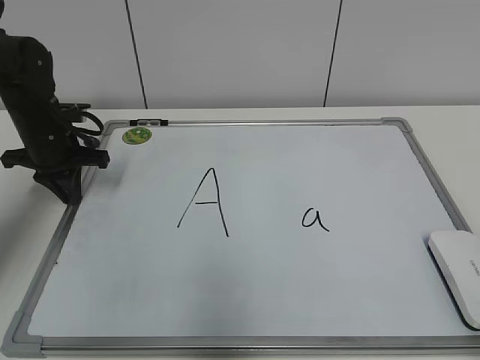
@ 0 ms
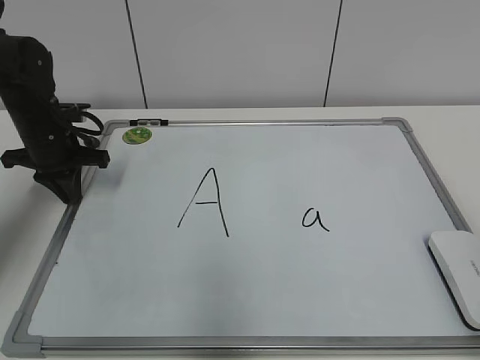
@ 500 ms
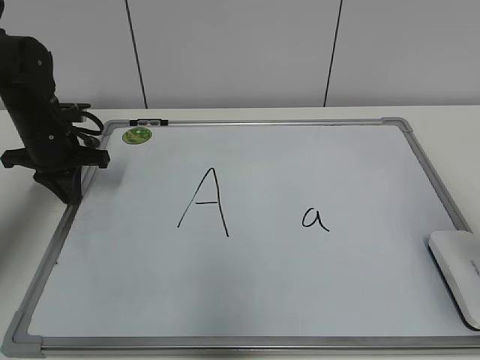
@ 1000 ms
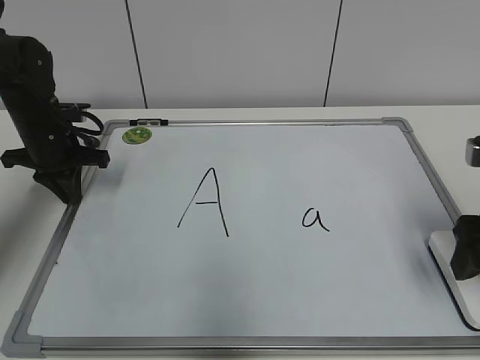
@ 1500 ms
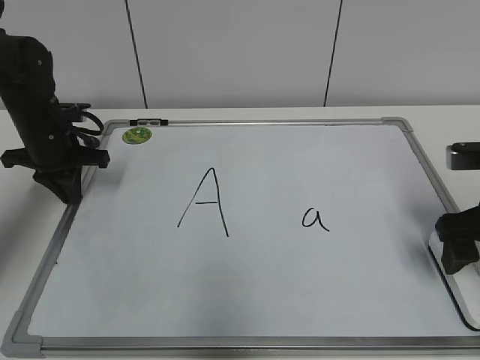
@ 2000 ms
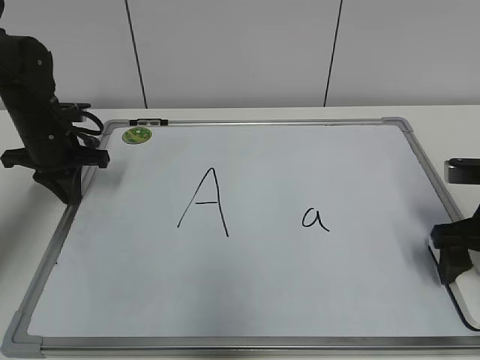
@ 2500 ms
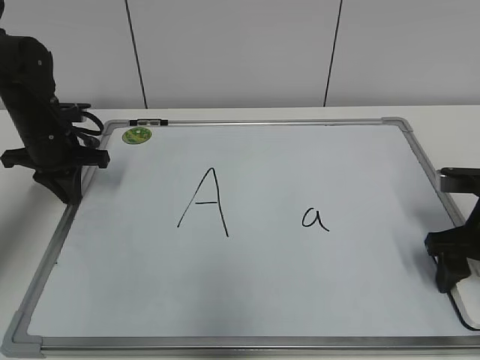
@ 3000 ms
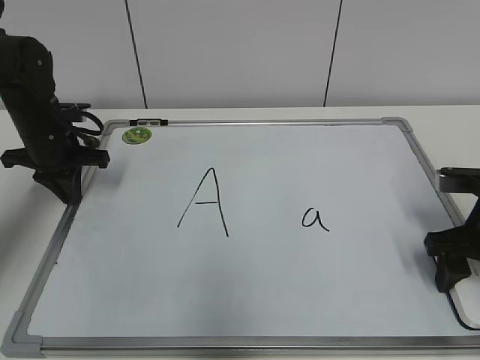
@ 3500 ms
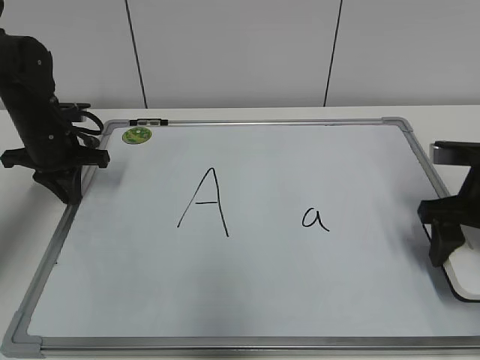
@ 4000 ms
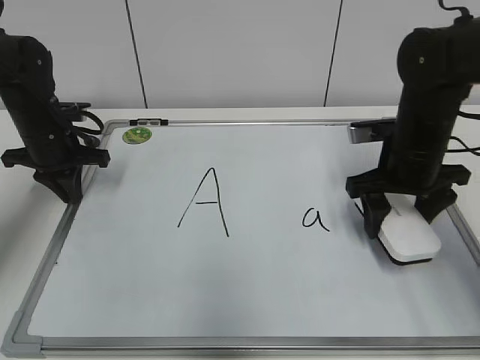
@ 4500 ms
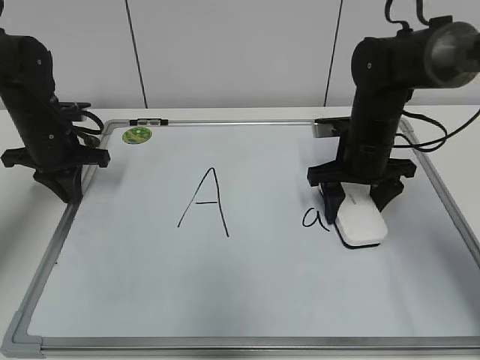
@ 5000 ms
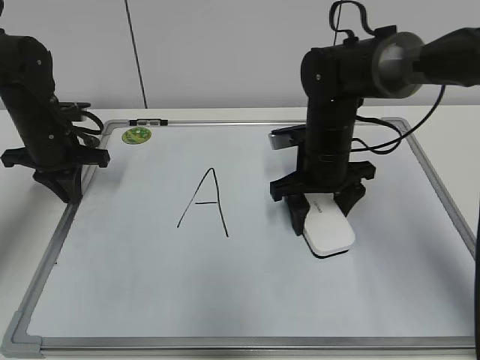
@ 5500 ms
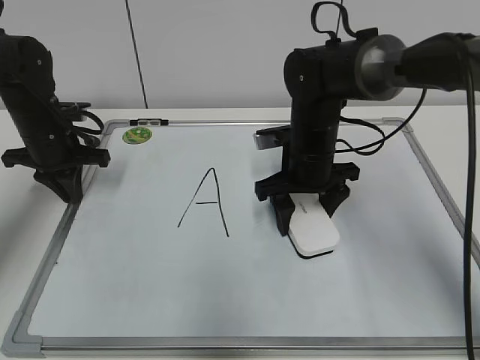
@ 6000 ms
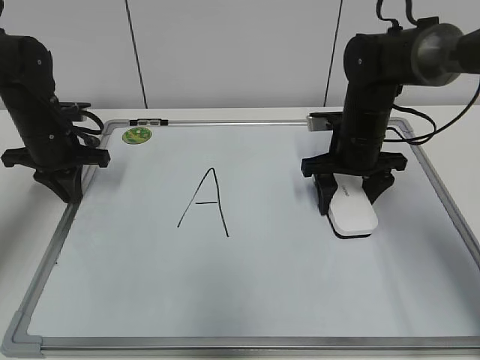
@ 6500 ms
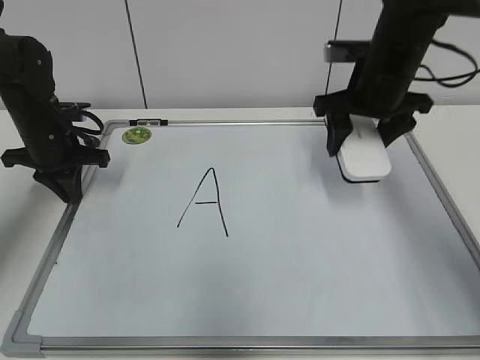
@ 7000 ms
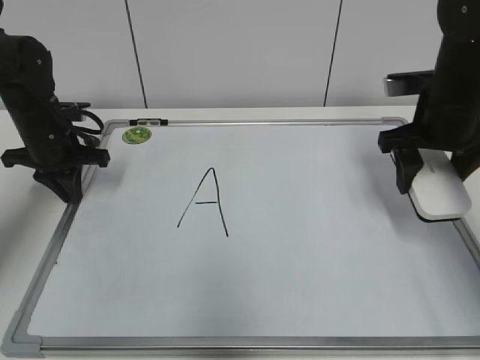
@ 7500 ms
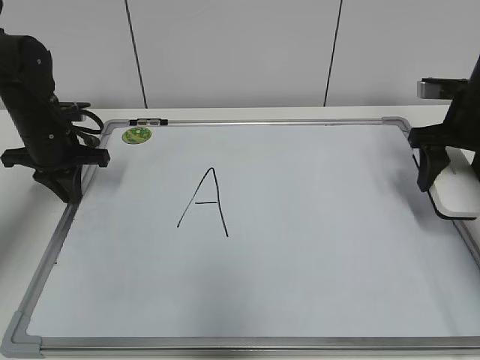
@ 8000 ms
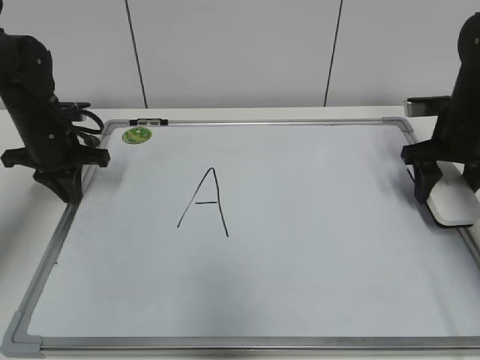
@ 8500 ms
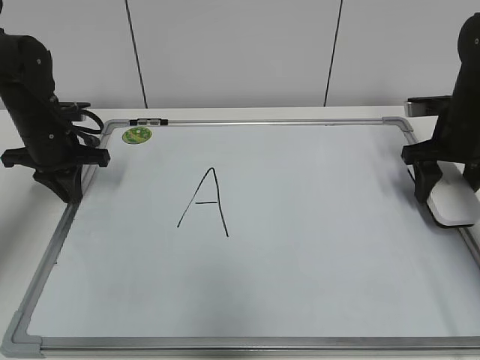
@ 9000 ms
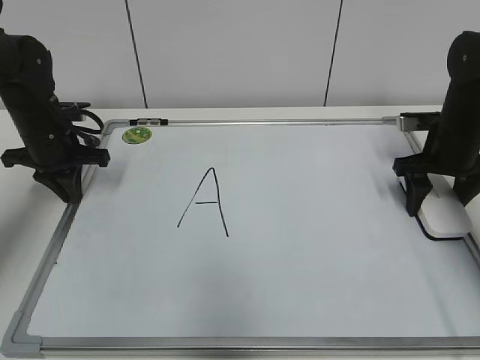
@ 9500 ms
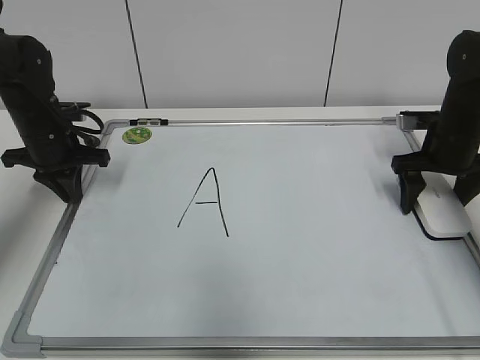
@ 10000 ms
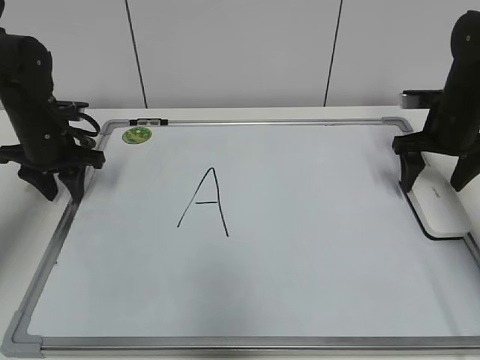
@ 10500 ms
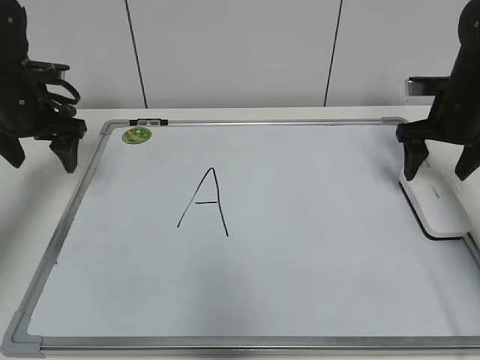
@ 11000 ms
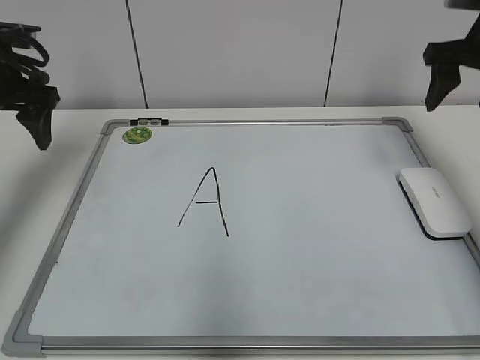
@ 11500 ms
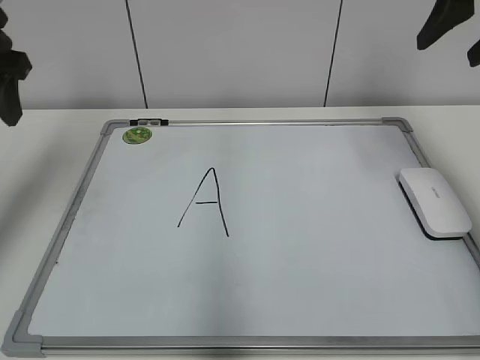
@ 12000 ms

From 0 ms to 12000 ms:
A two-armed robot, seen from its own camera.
Task of the whole recording: pick up the eraser on the blackboard and erase the letter "a".
Step, from 0 ms to 3500 ms: Grab the eraser with your right hand.
Step, from 4000 ms to 6500 ms: Erase the letter a with your right hand.
From 0 ms to 2000 ms: The right gripper shifts about 30 cm forward, and opens.
From 2000 ms to 4000 ms: The right gripper closes.
From 4000 ms to 6000 ms: The right gripper goes approximately 20 cm to the left and forward.
From 6000 ms to 8000 ms: The right gripper moves to the right, roughly 20 cm.
From 8000 ms to 10000 ms: The right gripper heads downward, covering approximately 5 cm, and opens its fingers.
From 10000 ms to 12000 ms: The left gripper goes some 20 cm upward and backward, and opens up. The right gripper is displaced upward by approximately 25 cm, and closes.

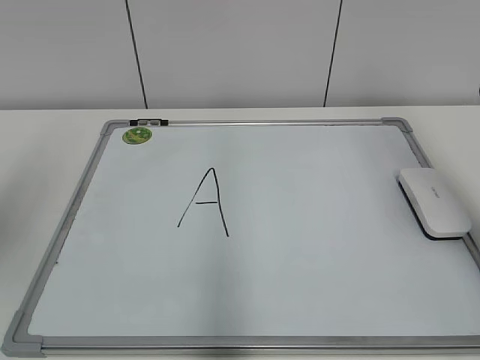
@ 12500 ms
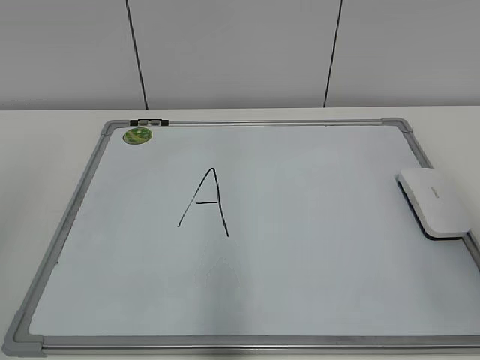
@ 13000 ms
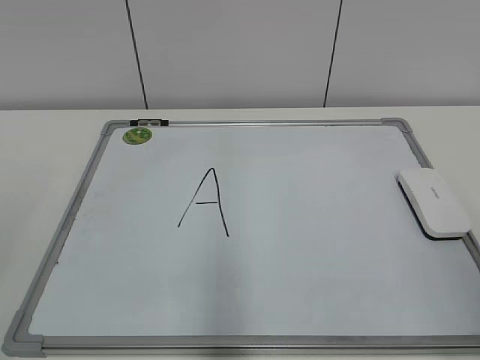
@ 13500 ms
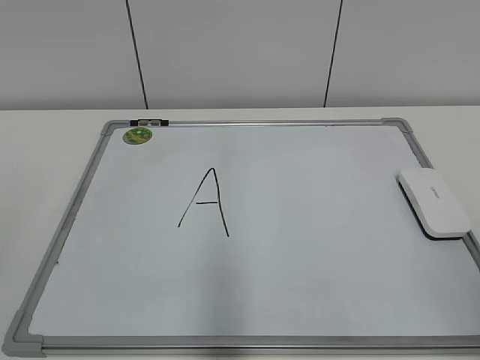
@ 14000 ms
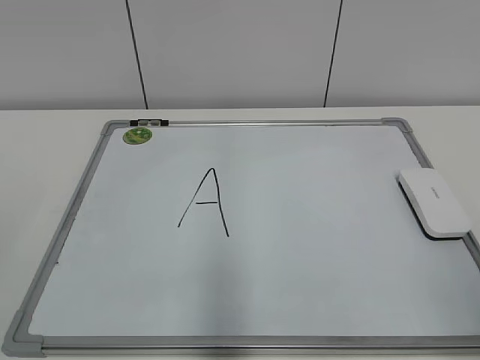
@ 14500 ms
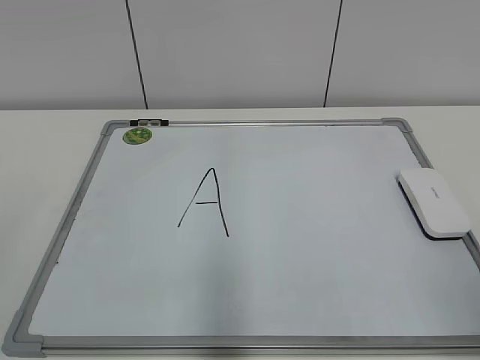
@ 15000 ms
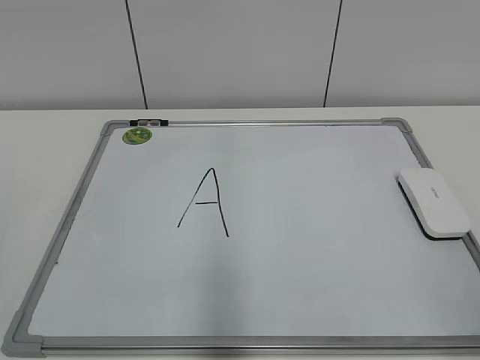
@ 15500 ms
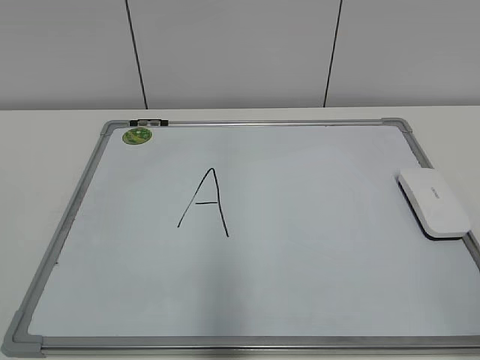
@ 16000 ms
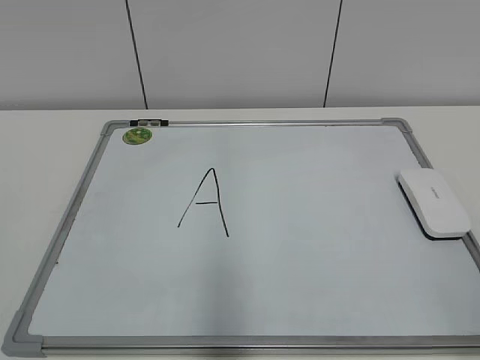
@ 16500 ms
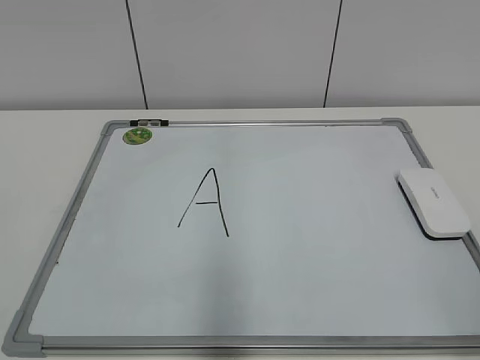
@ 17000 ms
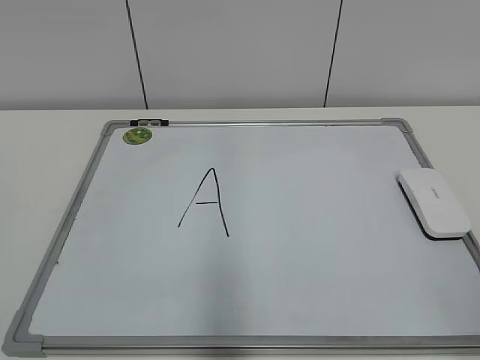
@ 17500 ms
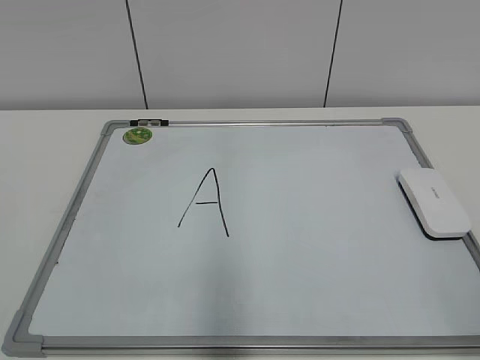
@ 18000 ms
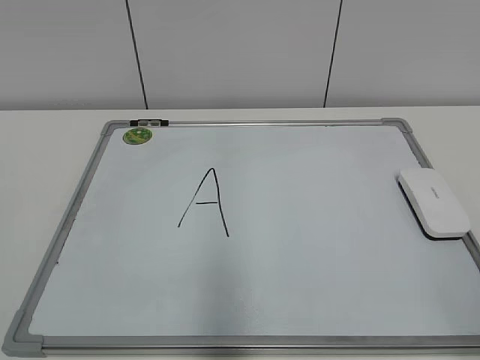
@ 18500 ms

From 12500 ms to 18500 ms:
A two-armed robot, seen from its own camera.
Task of the whole recording: pick up the eraser on the blackboard and erase the letter "a".
From 12500 ms to 14500 ms: The right gripper is displaced backward and downward by approximately 25 cm.
From 16500 ms to 18500 ms: The two grippers keep their place.
